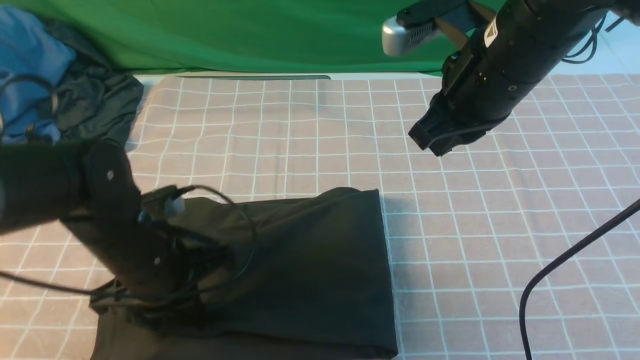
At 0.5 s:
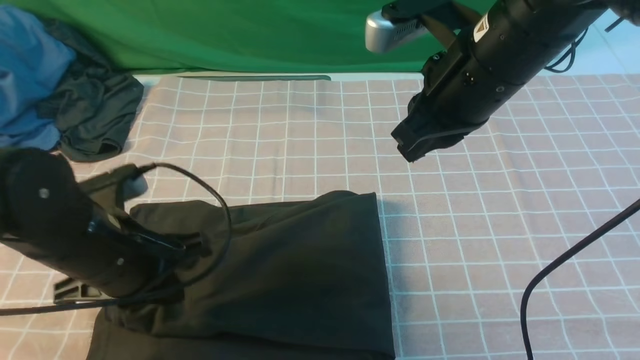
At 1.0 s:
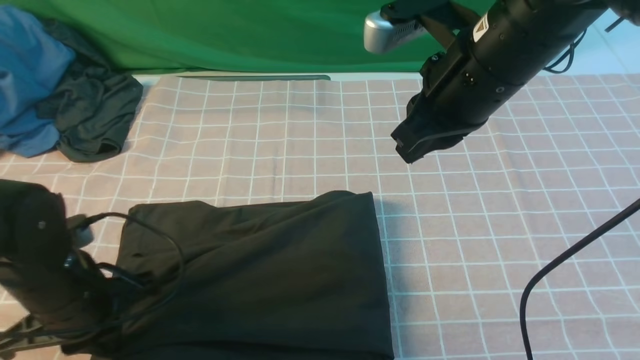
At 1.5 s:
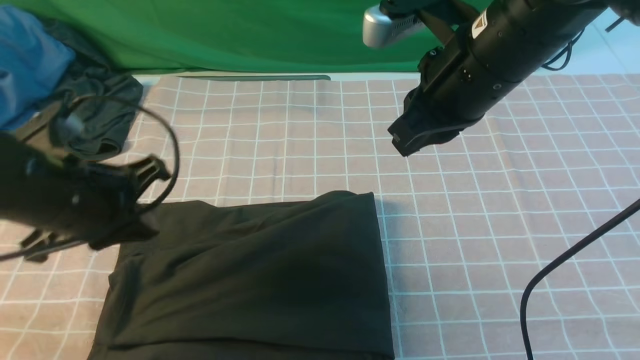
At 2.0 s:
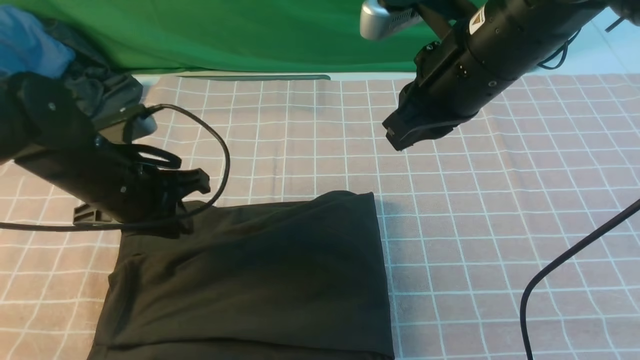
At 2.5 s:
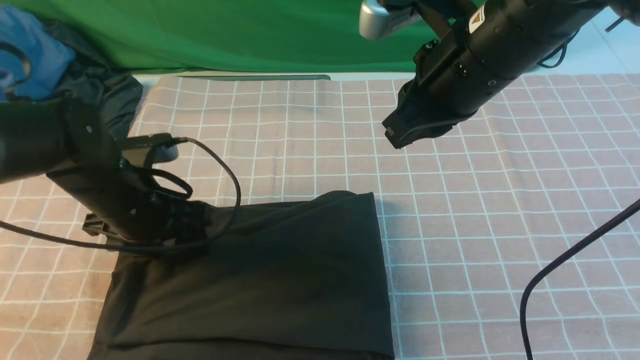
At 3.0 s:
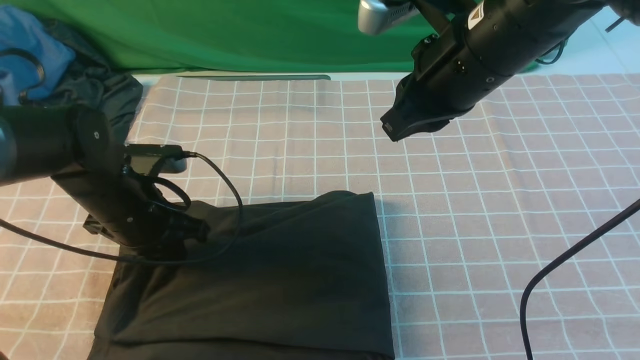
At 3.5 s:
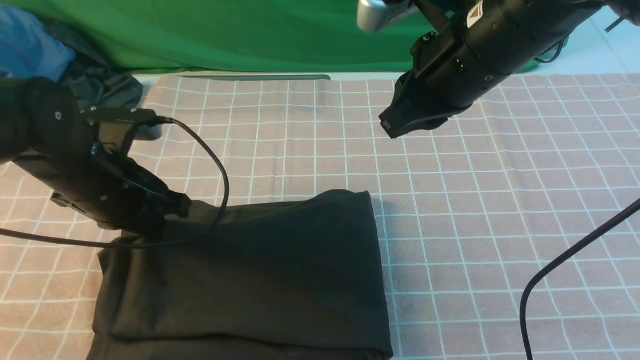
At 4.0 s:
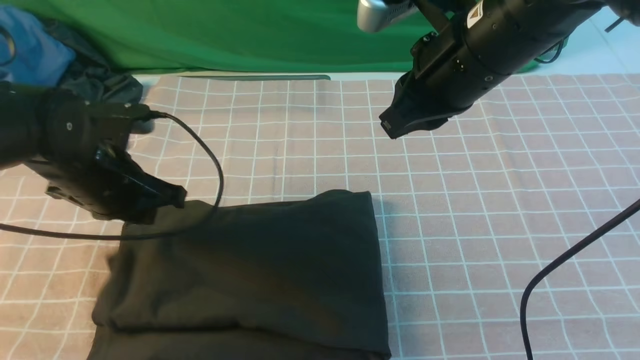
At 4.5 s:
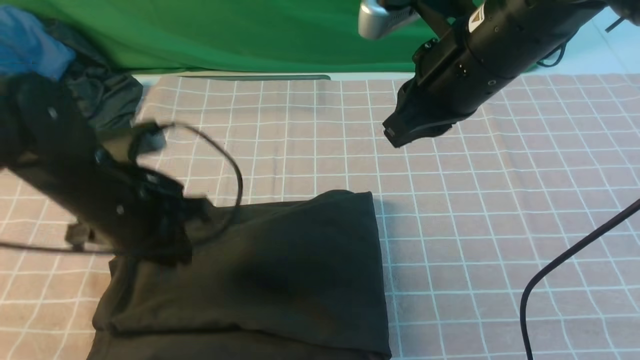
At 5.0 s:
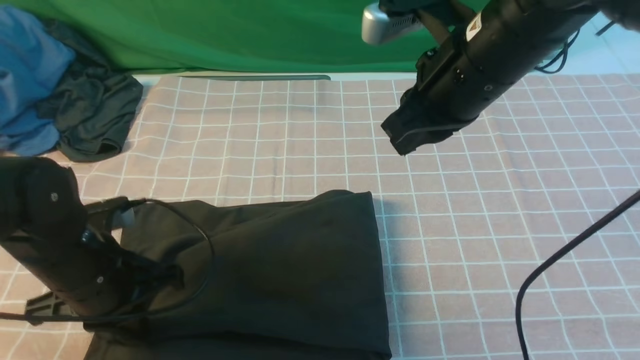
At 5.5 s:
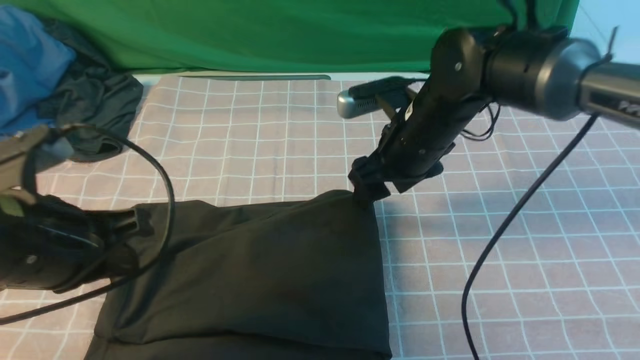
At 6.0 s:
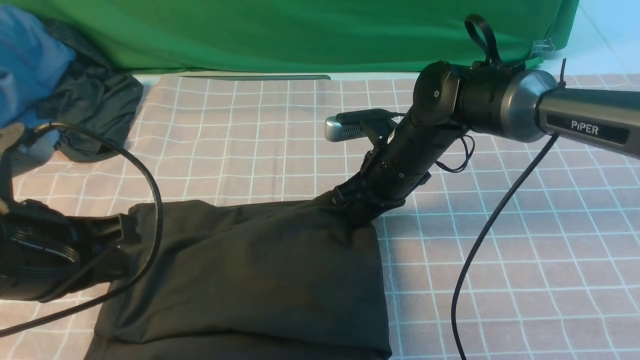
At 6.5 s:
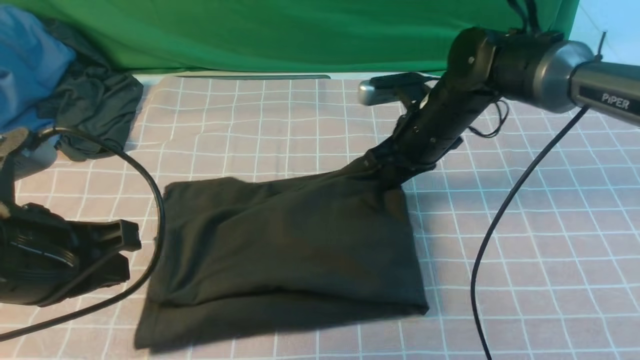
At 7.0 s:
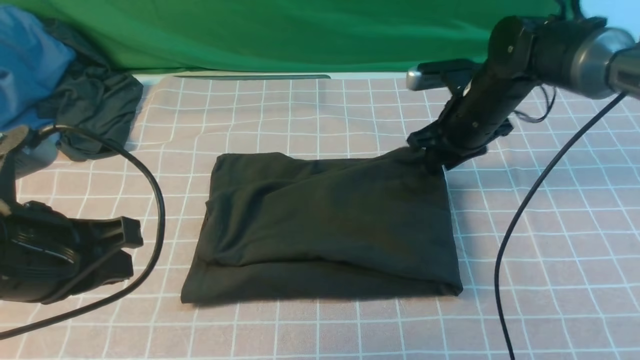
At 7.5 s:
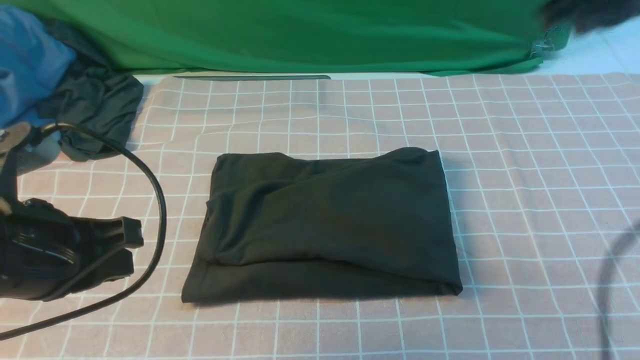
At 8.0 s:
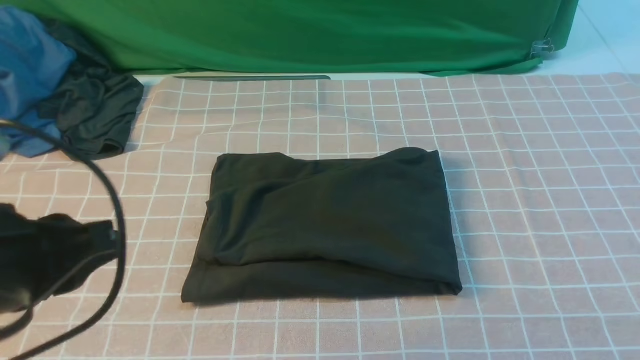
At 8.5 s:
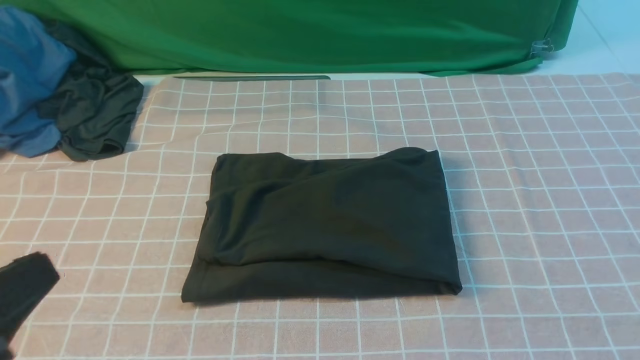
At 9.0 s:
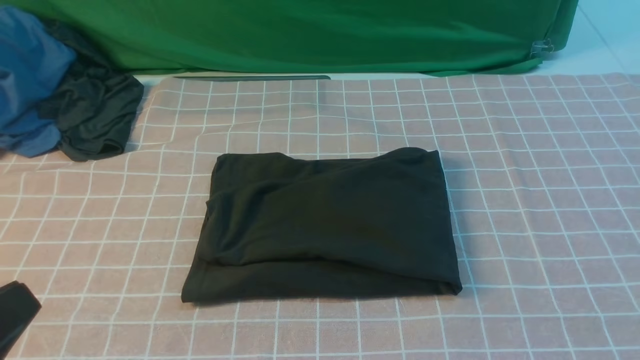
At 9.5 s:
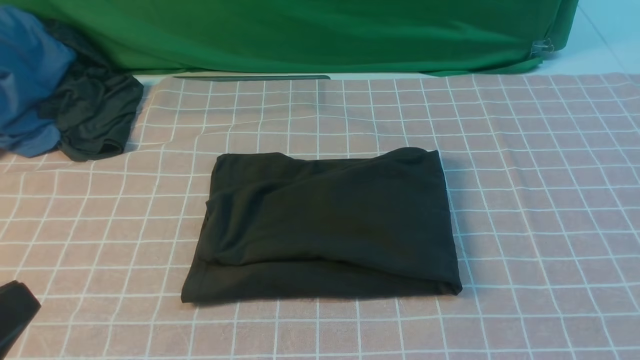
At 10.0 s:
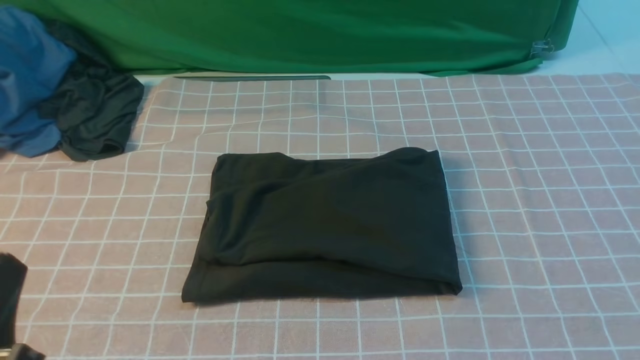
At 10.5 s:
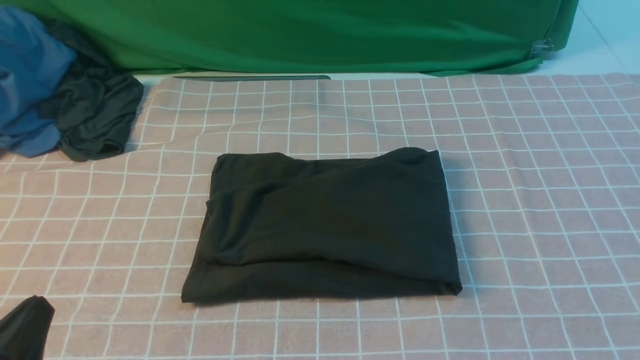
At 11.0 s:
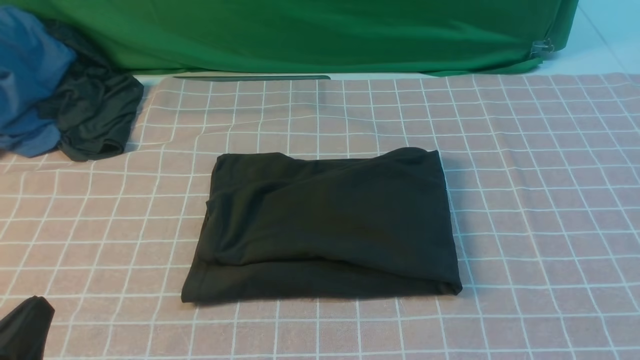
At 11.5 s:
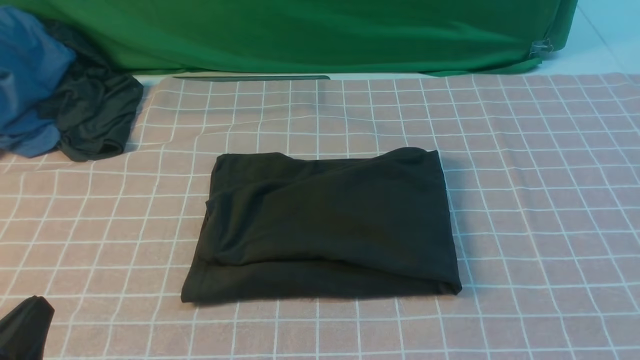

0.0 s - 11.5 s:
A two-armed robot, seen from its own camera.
0.0 s - 2.0 s: The left gripper moves some 5 cm, and opens.
2.0 s - 4.0 s: The left gripper opens, then closes once more.
4.0 s - 6.0 s: The right gripper heads downward, covering approximately 15 cm, and opens up. The left gripper moves backward and upward, about 15 cm.
6.0 s - 7.5 s: The right gripper is displaced upward and to the right by roughly 30 cm.
7.5 s - 9.5 s: The right gripper heads backward, covering approximately 30 cm, while the left gripper is displaced backward by some 15 cm.
9.5 s - 11.5 s: The left gripper moves downward, roughly 10 cm.

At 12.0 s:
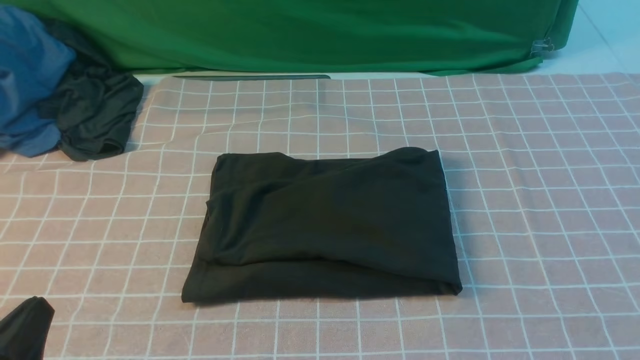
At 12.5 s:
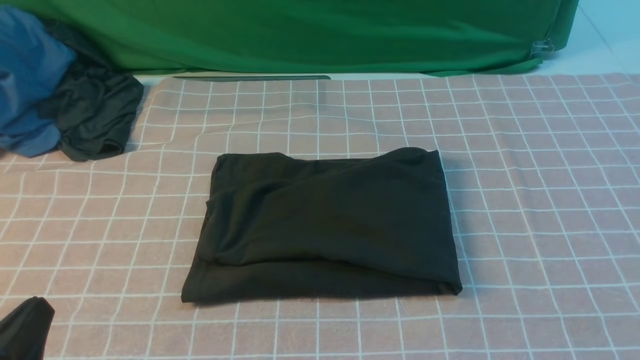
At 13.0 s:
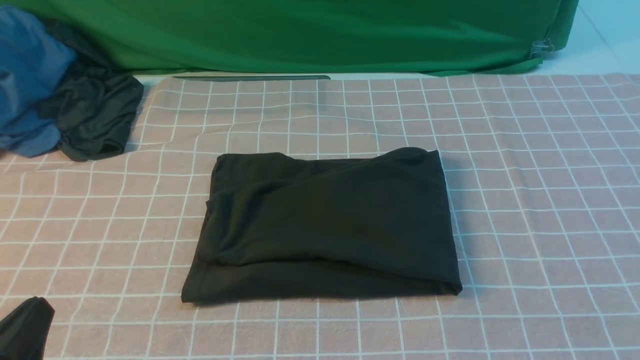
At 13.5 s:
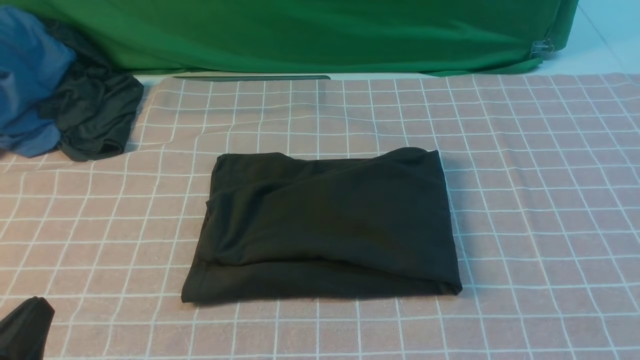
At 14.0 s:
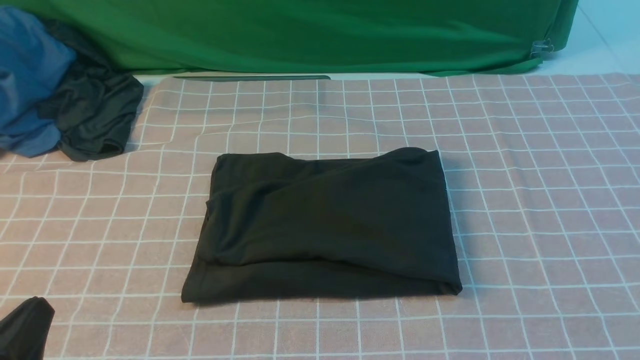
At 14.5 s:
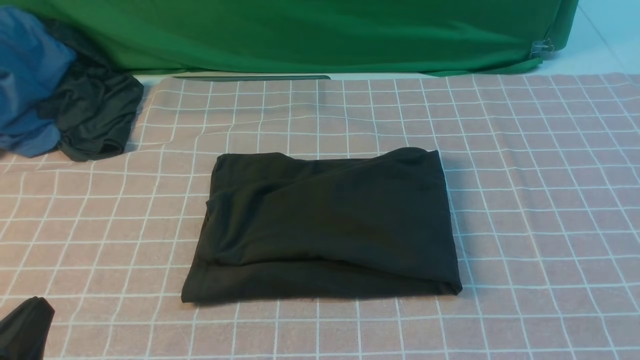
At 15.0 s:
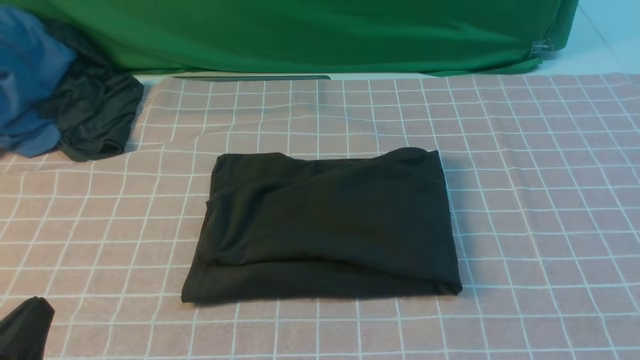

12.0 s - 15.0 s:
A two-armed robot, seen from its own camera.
12.0 s - 15.0 s: The two grippers keep their place.

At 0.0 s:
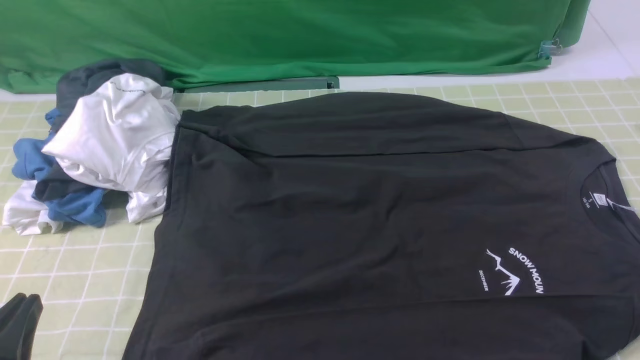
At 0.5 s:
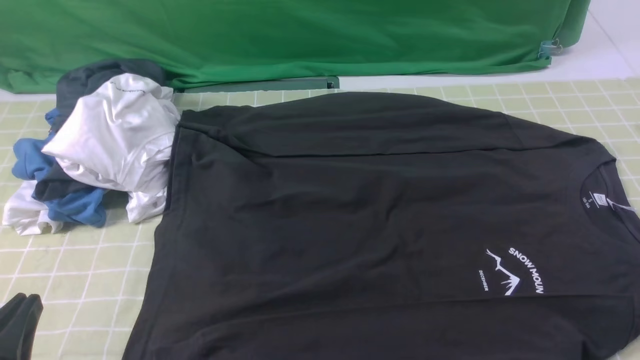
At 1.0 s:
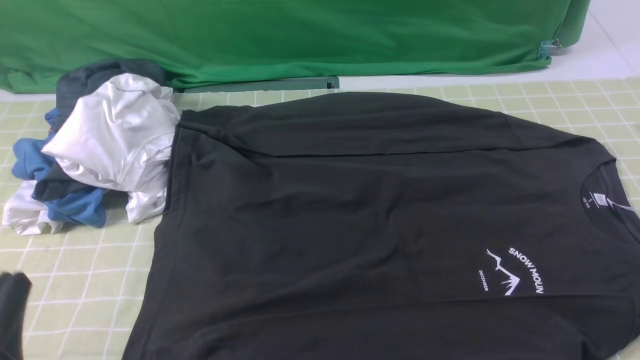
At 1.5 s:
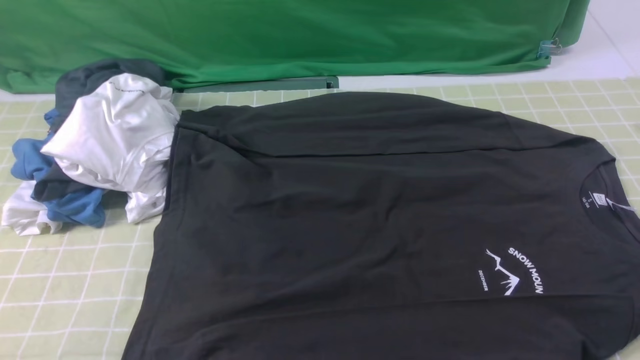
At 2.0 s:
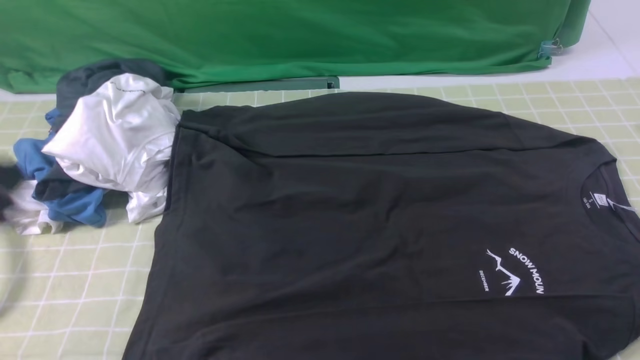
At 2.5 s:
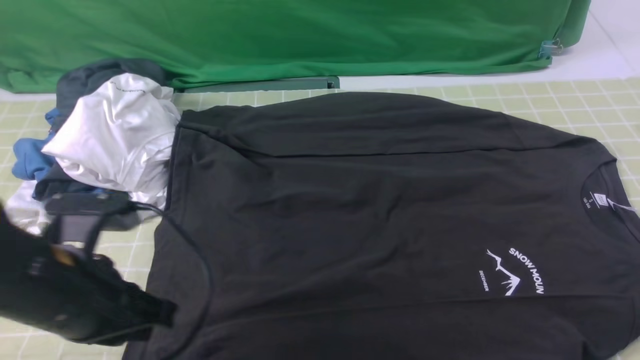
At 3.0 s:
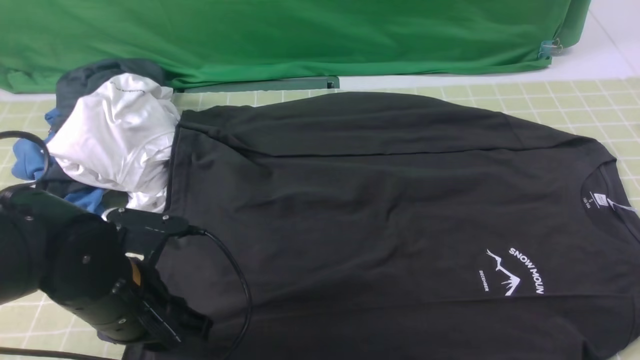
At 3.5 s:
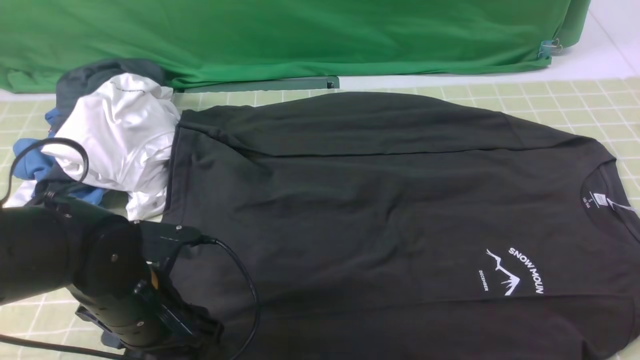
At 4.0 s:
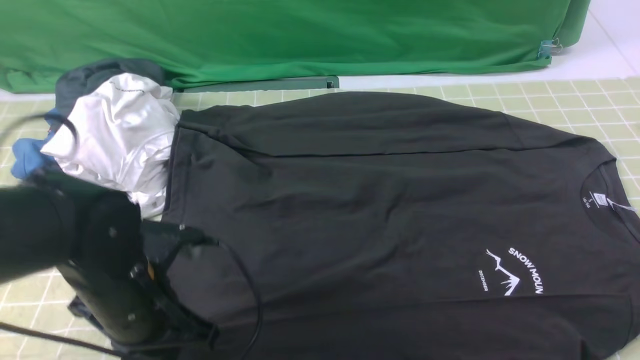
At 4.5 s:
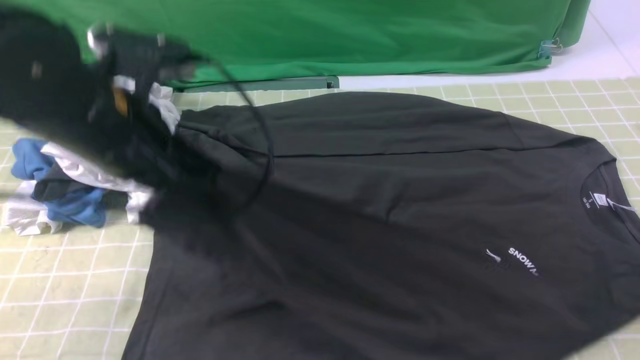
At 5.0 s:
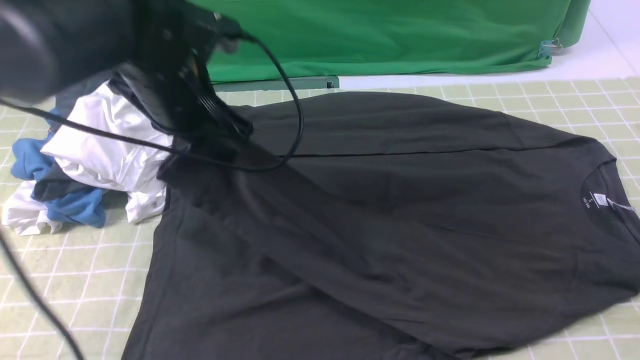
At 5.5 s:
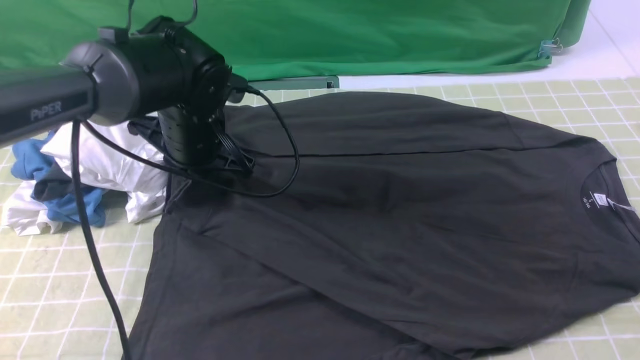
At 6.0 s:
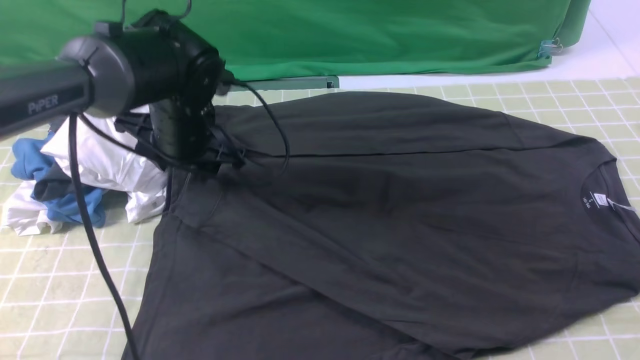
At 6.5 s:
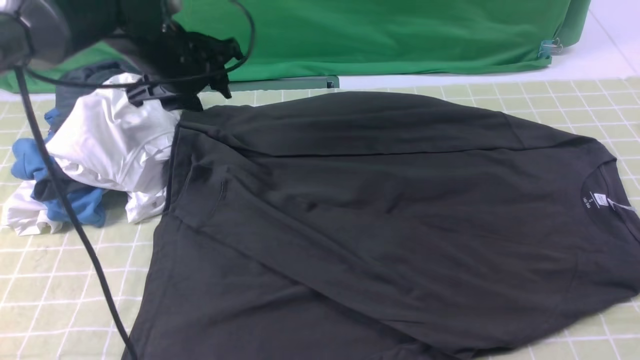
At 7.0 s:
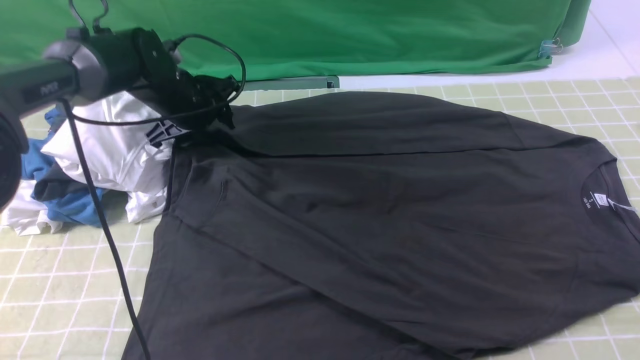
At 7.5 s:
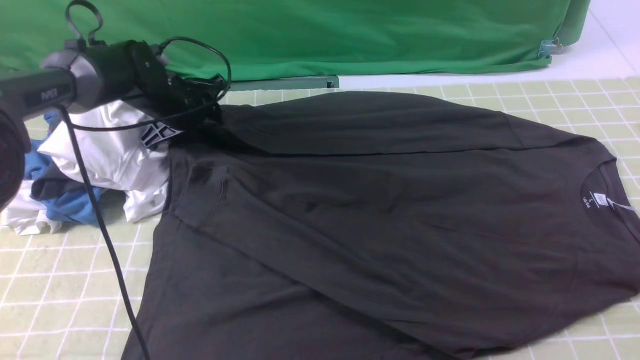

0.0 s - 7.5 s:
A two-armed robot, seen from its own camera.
Step, 0.0 s - 3.5 s: use the left arm to clamp the cuff closest to it.
Step, 4.0 s - 5.5 s: use the left arm to drag and place the cuff at the centered position on the left edge of the fabric.
2.0 s - 4.0 s: The right gripper travels upward and forward by approximately 10 cm, and closes. Meanwhile the left gripper travels downward, forward and to the right by roughly 25 cm, and opens and closes again.
4.0 s - 5.5 s: The left gripper travels forward by about 15 cm.
5.5 s - 7.5 s: The left gripper is displaced forward, to the left and downward by about 15 cm, and opens up.
